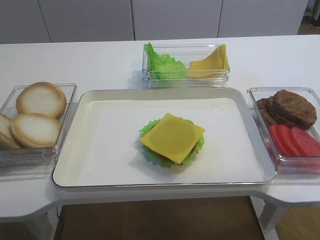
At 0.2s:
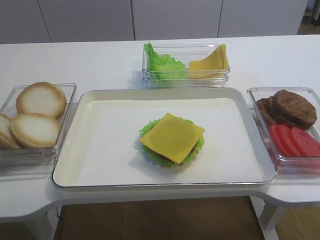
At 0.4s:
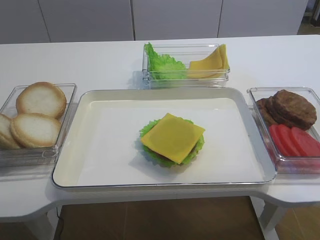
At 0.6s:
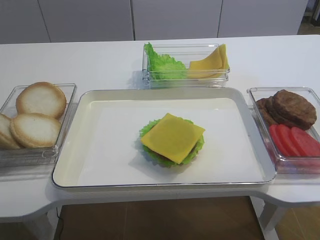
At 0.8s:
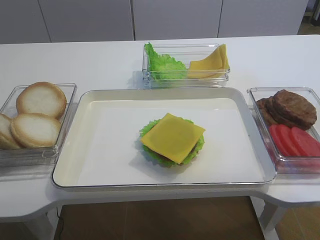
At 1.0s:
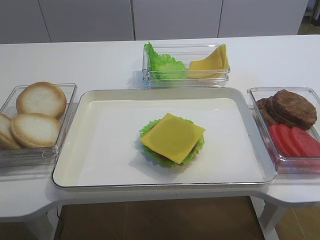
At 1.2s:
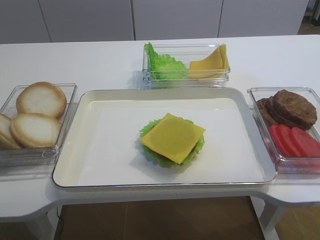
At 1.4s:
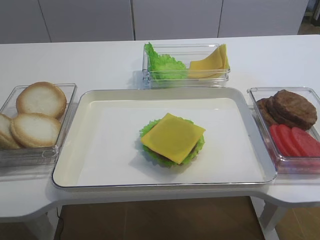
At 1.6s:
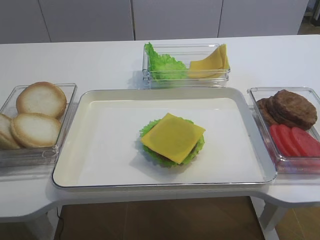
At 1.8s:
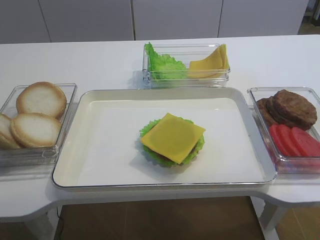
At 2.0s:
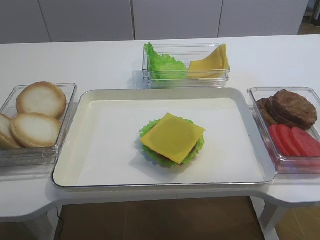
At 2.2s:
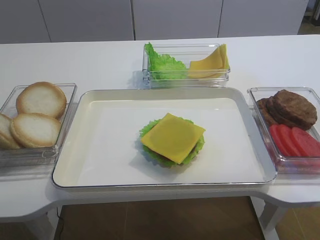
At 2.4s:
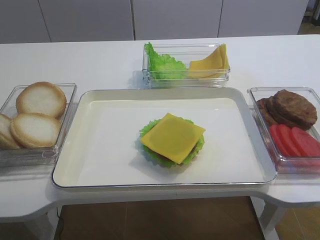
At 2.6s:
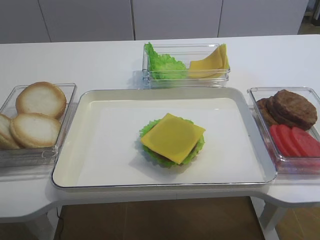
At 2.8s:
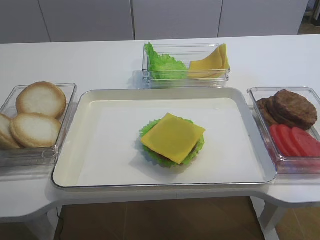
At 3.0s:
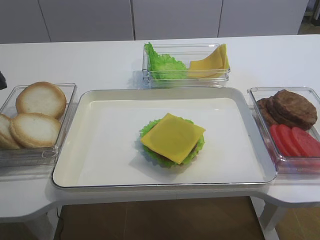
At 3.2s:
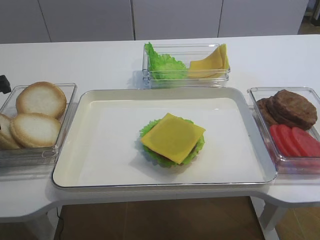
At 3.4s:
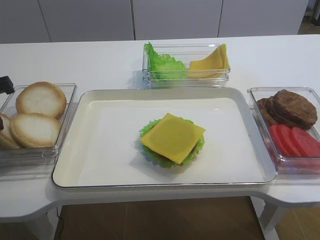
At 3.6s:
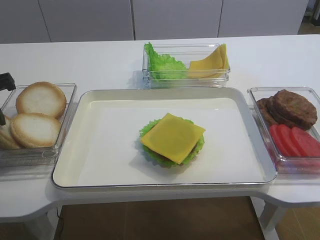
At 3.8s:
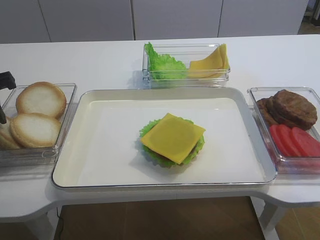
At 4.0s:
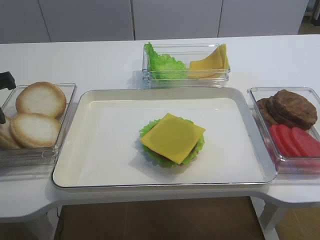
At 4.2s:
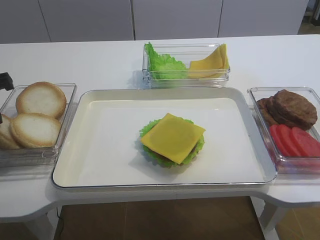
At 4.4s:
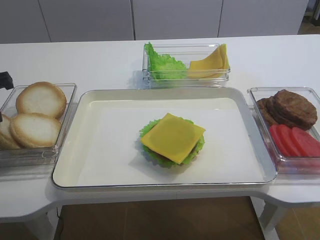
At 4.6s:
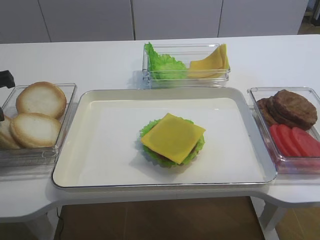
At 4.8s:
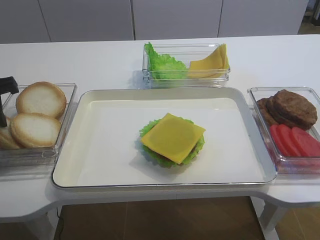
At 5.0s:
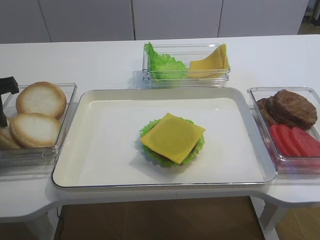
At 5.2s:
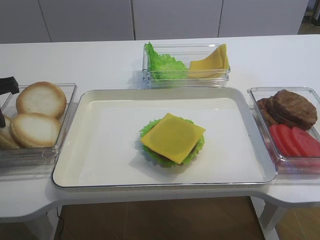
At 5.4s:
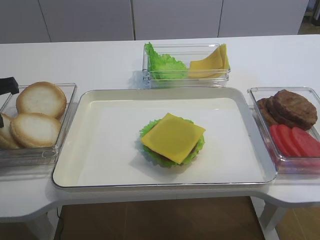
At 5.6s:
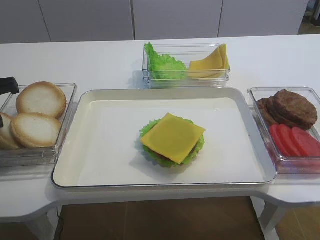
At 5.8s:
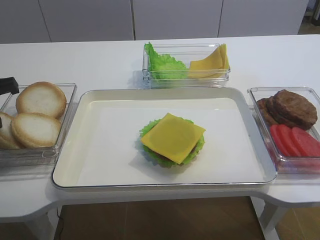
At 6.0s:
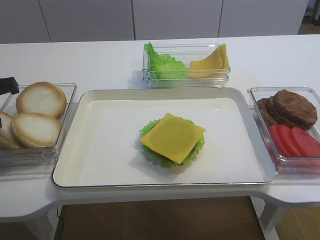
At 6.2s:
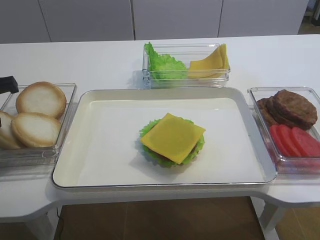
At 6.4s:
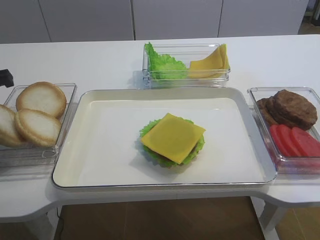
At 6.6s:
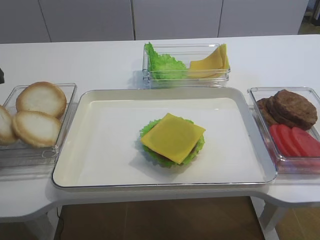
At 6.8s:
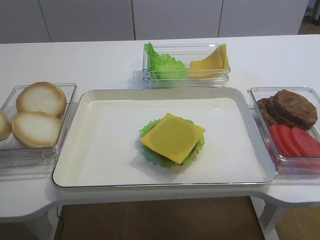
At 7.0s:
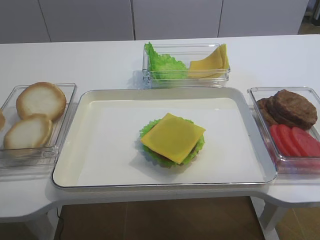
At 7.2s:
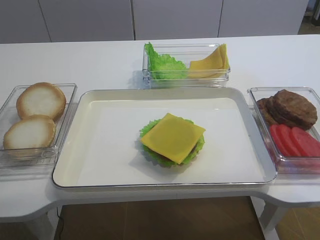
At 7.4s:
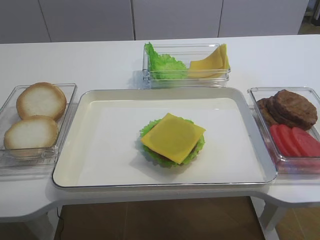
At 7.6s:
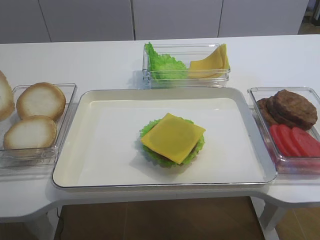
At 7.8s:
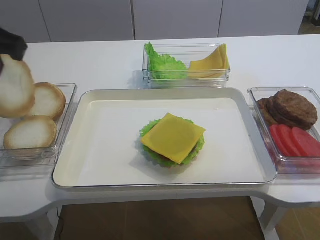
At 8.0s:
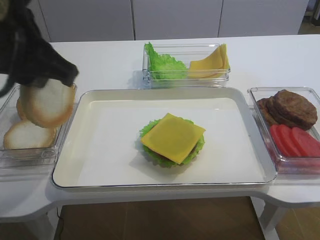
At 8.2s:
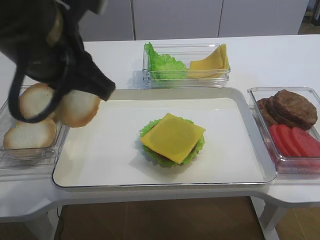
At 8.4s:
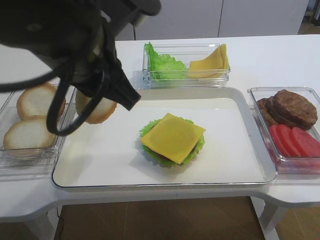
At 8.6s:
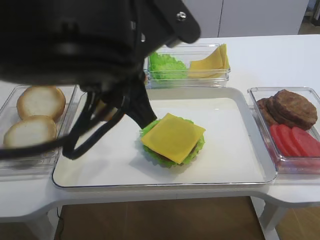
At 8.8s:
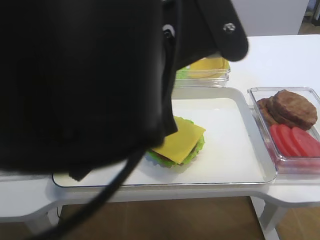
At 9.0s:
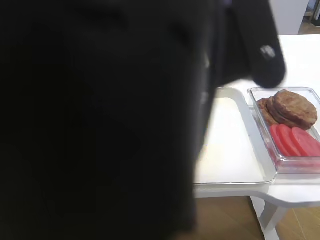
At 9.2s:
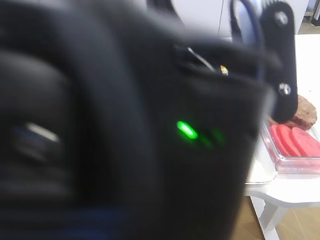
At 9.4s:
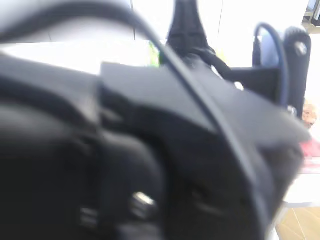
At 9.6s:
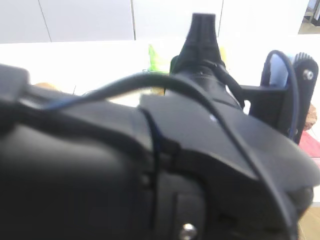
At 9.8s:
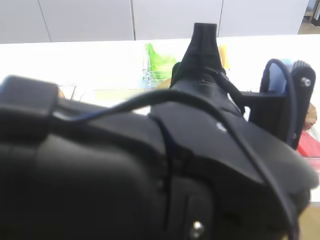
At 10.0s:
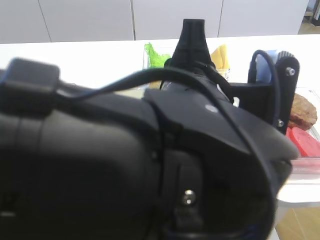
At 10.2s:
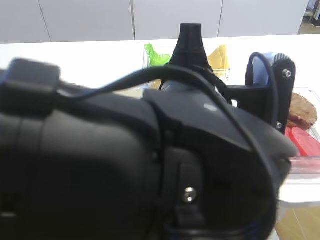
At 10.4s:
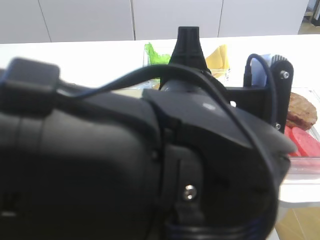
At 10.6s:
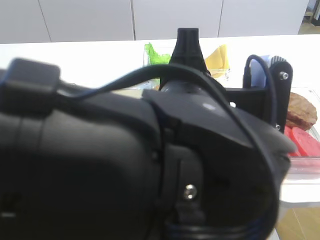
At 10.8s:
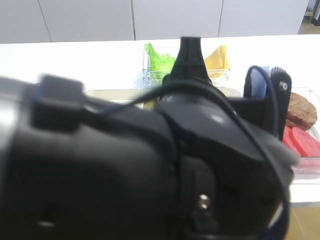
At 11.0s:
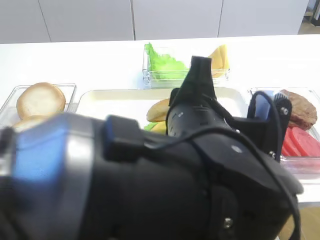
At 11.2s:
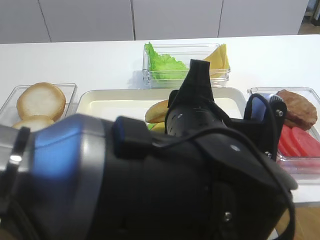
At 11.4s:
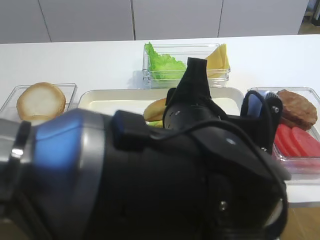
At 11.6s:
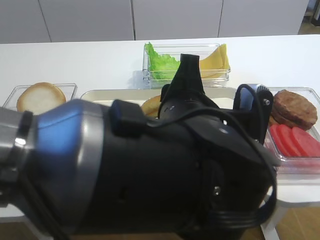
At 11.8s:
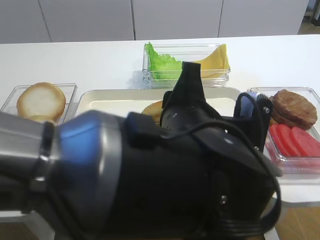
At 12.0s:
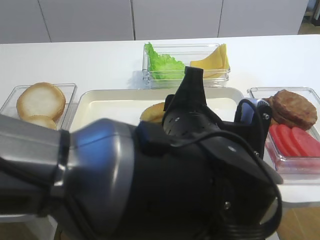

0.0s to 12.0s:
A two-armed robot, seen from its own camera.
Step, 0.0s to 7.6s: Pick up the hamburger lid with the left gripper.
6.0s to 7.6s: The left gripper is displaced upward by approximately 10 cm.
7.6s to 9.0s: The left gripper shifts approximately 25 cm to the right.
9.0s to 10.4s: The left gripper ends up roughly 5 cm from where it was.
10.4s to 12.0s: The left gripper goes roughly 5 cm downward.

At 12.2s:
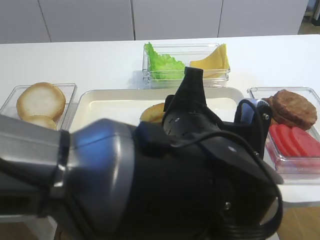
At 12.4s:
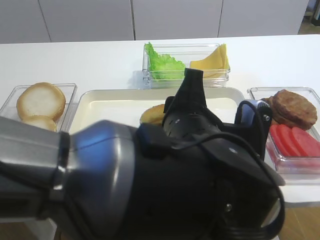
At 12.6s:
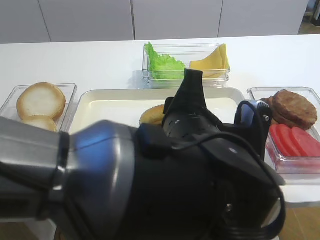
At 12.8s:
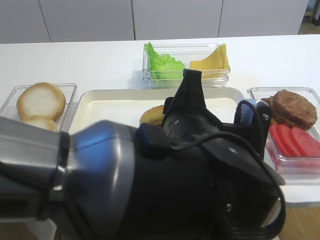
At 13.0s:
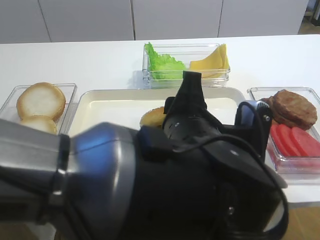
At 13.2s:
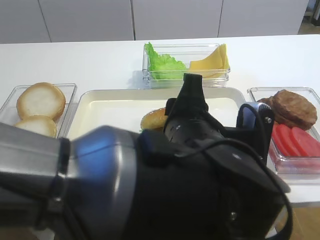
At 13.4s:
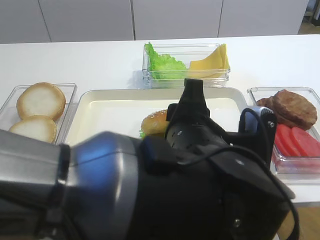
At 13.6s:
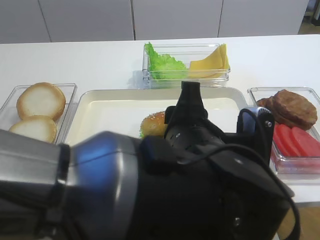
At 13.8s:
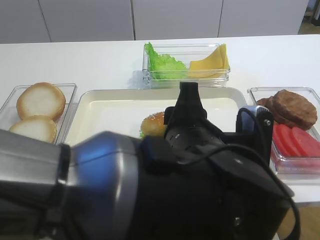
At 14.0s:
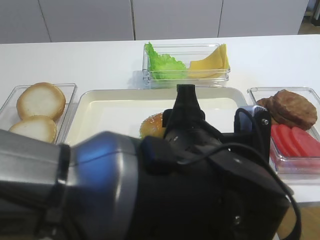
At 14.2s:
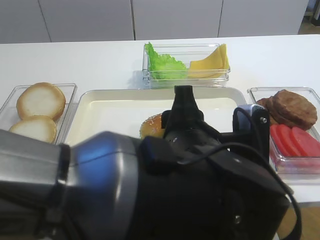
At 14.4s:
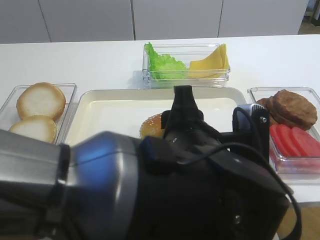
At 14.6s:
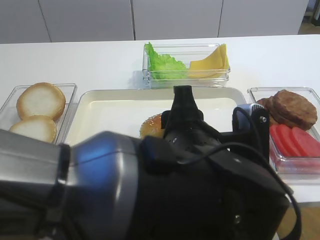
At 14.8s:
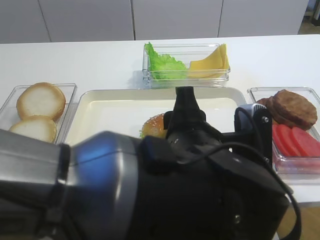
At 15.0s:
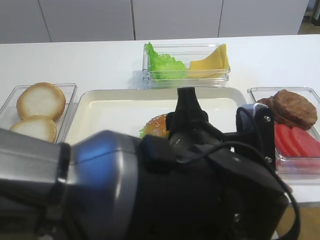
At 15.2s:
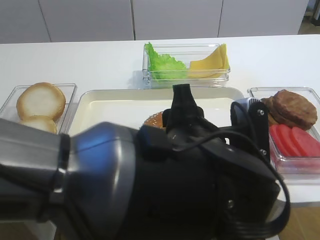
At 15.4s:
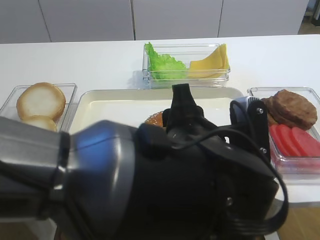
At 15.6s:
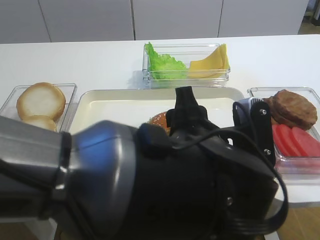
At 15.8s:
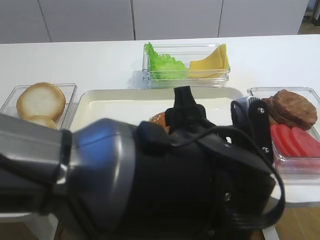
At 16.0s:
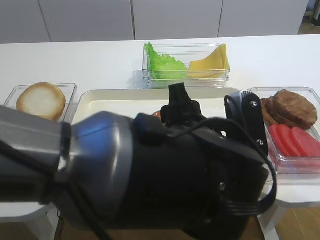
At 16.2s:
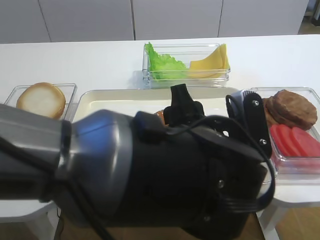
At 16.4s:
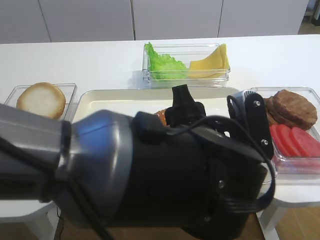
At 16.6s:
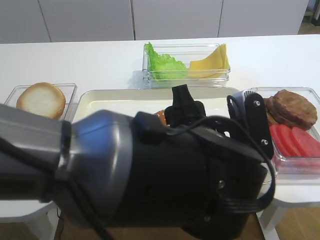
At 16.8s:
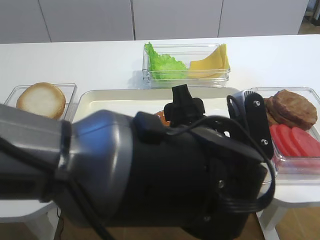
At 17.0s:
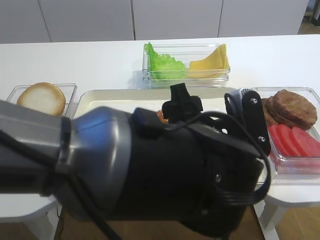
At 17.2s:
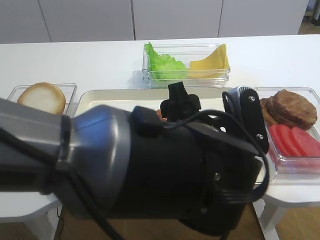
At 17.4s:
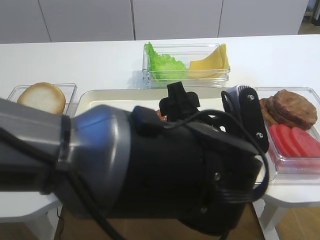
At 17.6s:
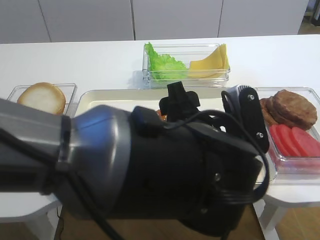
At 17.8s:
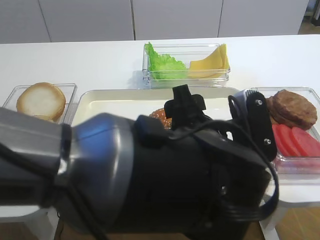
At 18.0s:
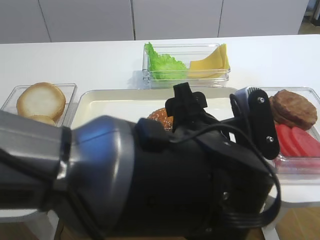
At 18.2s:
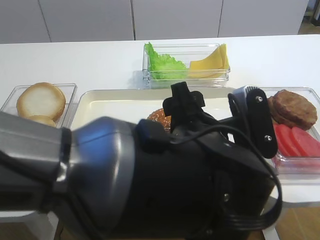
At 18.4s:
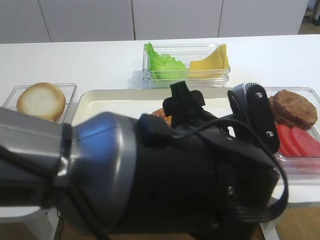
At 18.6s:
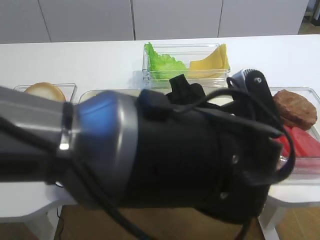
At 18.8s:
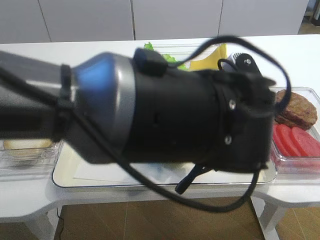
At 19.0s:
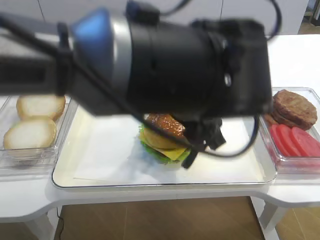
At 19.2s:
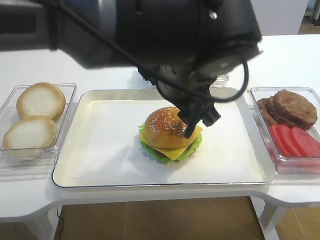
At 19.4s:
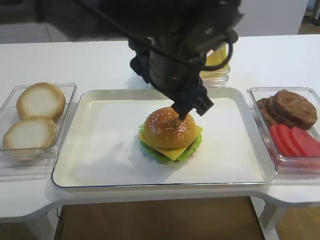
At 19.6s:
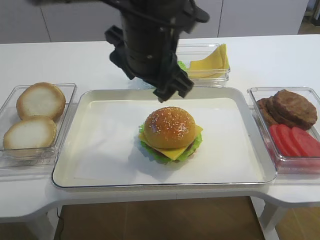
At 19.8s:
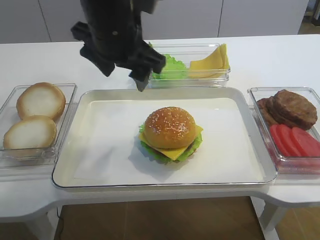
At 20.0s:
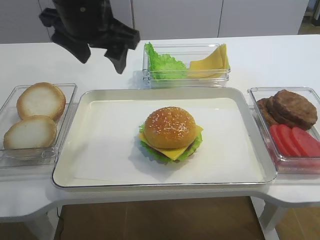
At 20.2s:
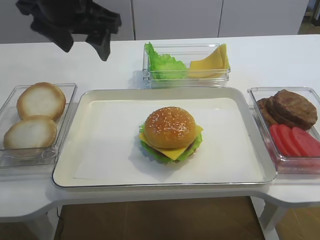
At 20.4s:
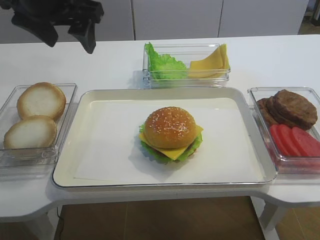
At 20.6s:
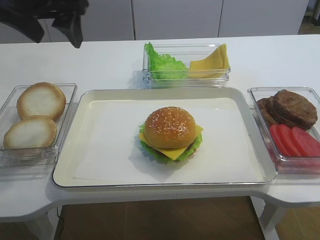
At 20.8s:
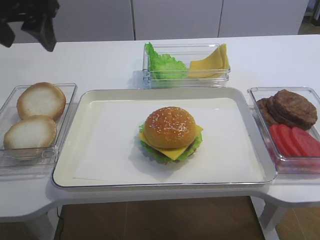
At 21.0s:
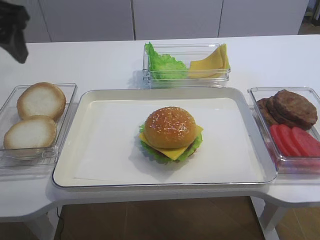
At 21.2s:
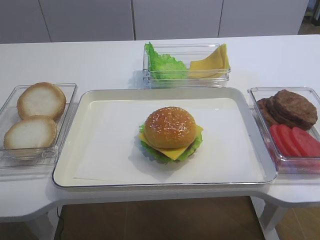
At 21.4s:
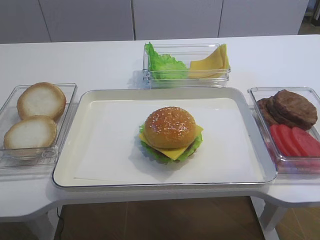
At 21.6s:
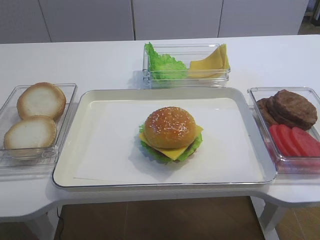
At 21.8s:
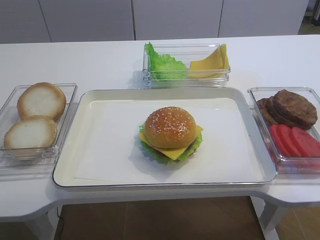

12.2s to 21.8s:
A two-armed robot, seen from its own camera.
Step, 12.2s to 19.2s: Place the hamburger lid on the cheese slice with the left gripper.
12.2s to 15.4s: The grippers move only a little.
15.4s to 17.0s: The left gripper opens up.
18.6s to 20.2s: The left gripper goes about 25 cm to the left, forward and upward.
20.2s to 21.8s: The left gripper travels backward and to the left by about 30 cm.

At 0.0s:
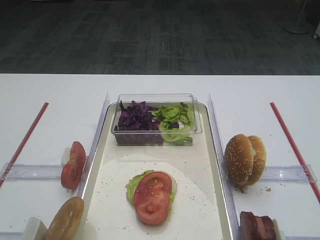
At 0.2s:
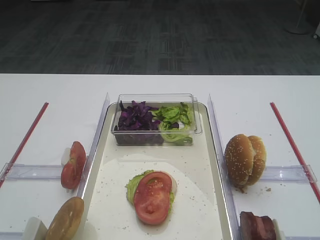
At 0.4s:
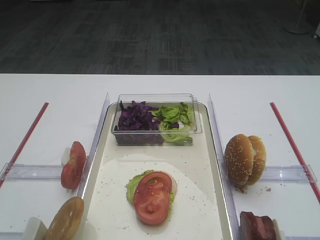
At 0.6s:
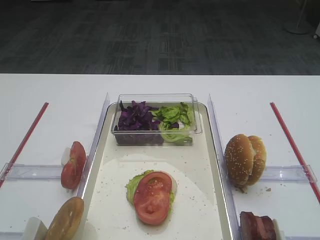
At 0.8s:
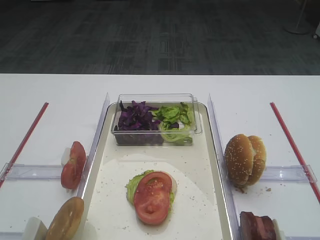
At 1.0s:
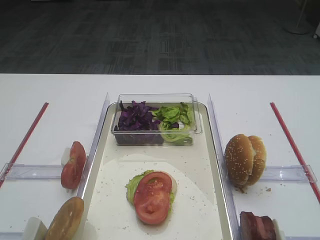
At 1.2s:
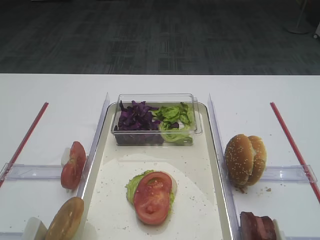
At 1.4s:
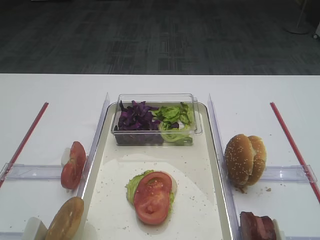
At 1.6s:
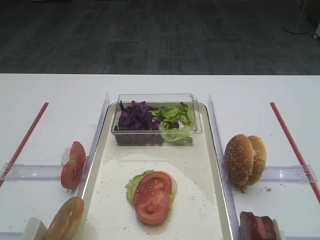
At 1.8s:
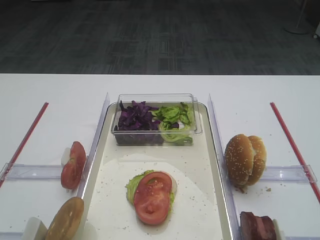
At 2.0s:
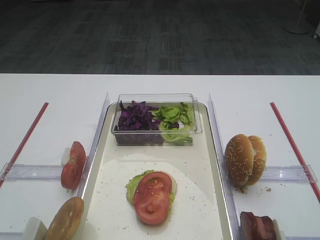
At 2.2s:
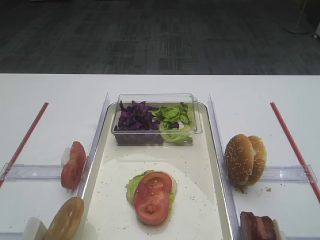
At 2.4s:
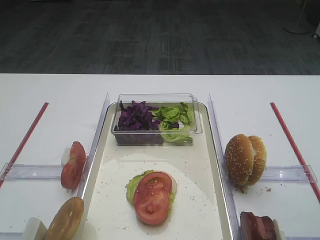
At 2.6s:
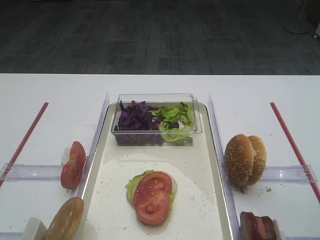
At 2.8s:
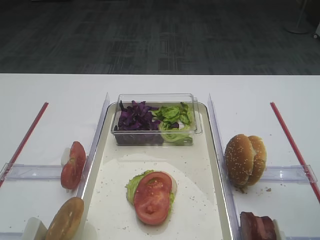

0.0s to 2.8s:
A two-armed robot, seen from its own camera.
1.4s to 2.8s: The right gripper travels forward by roughly 15 cm.
